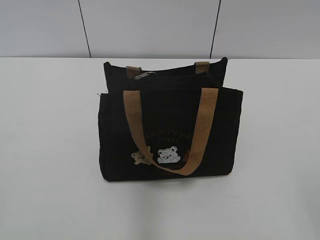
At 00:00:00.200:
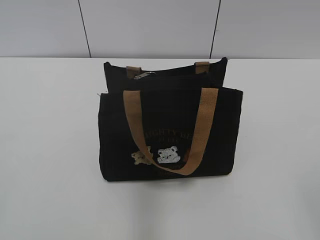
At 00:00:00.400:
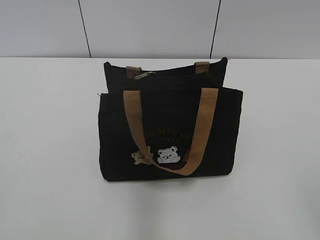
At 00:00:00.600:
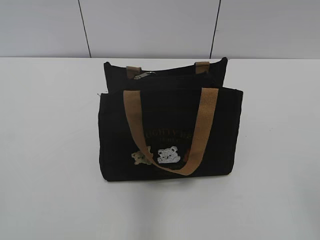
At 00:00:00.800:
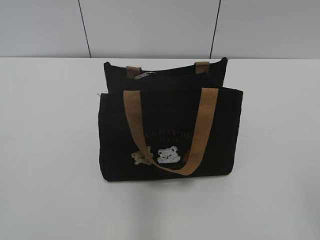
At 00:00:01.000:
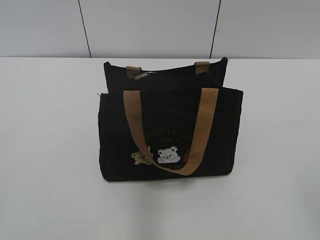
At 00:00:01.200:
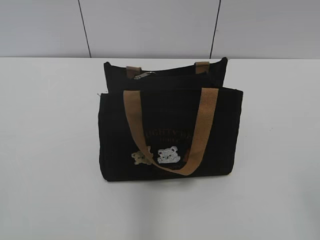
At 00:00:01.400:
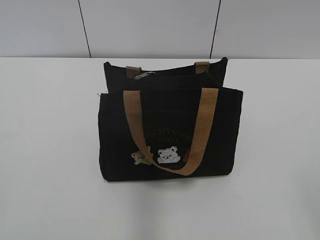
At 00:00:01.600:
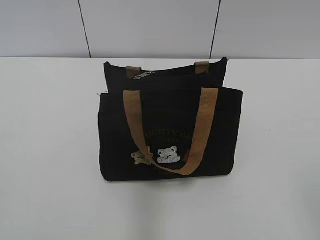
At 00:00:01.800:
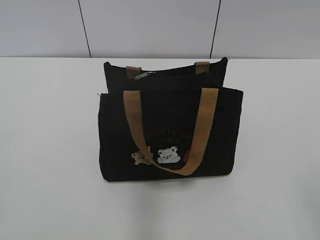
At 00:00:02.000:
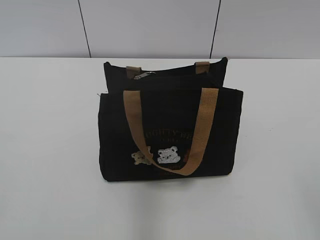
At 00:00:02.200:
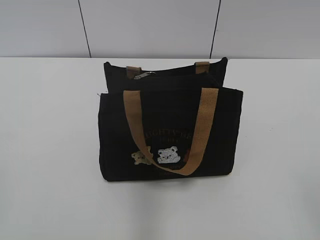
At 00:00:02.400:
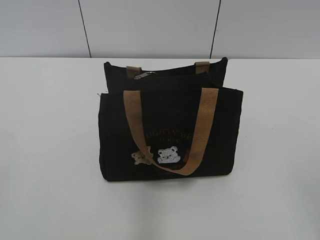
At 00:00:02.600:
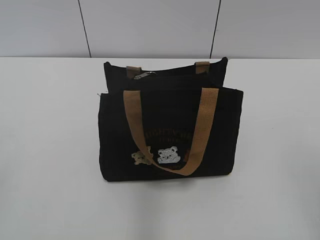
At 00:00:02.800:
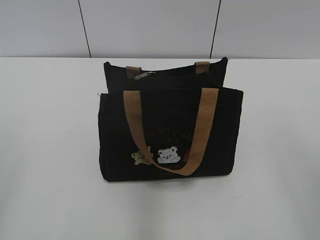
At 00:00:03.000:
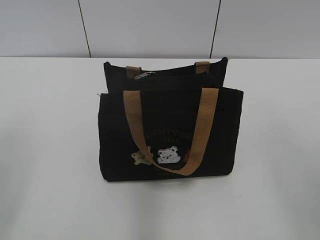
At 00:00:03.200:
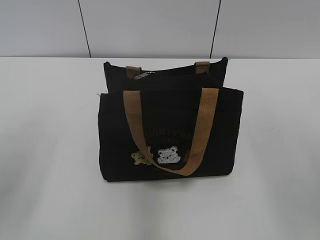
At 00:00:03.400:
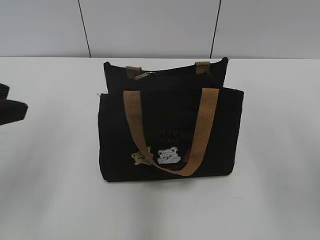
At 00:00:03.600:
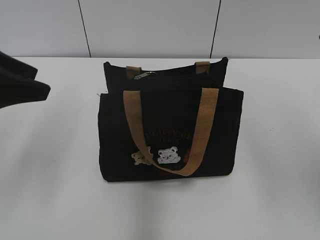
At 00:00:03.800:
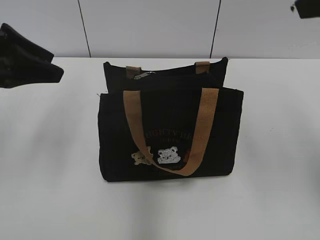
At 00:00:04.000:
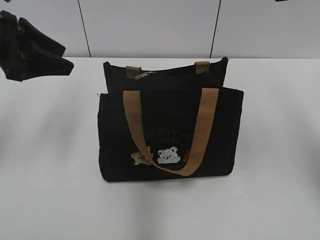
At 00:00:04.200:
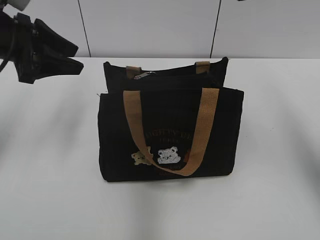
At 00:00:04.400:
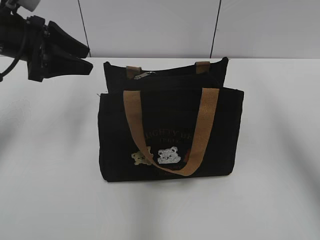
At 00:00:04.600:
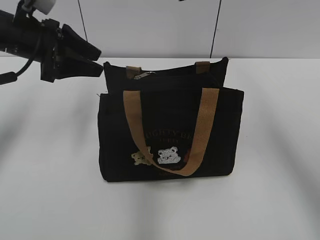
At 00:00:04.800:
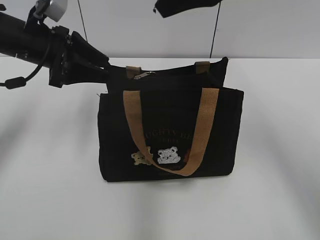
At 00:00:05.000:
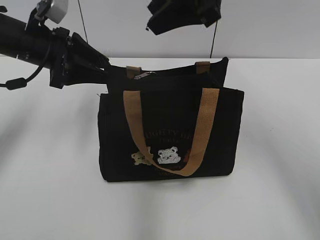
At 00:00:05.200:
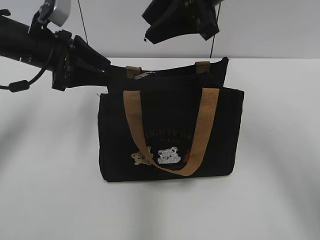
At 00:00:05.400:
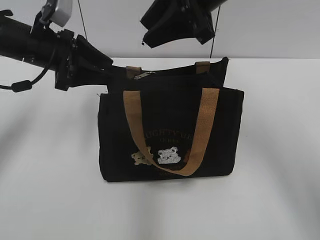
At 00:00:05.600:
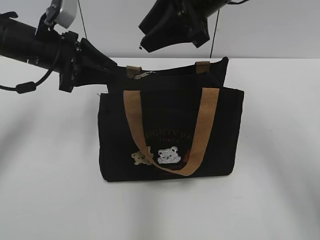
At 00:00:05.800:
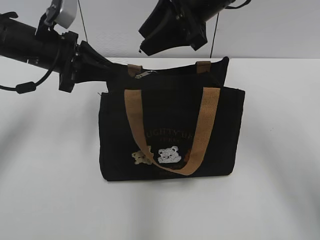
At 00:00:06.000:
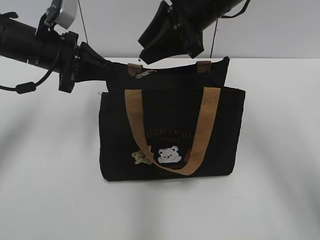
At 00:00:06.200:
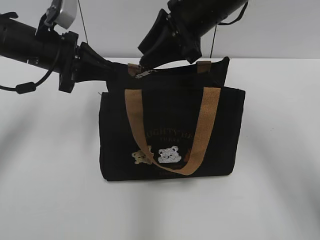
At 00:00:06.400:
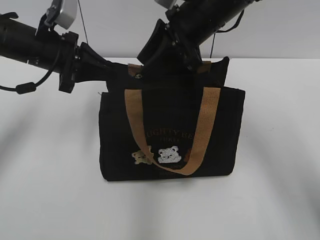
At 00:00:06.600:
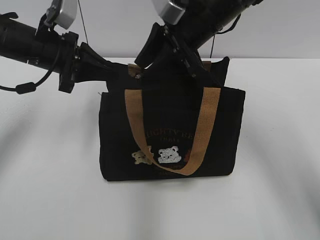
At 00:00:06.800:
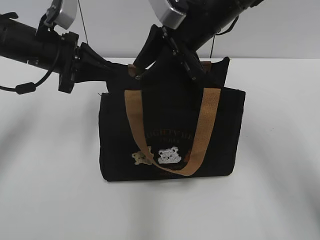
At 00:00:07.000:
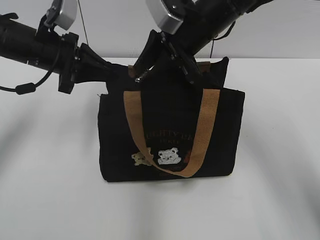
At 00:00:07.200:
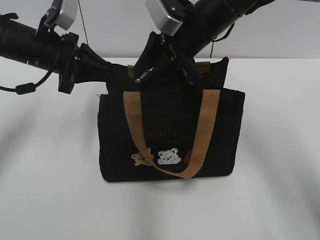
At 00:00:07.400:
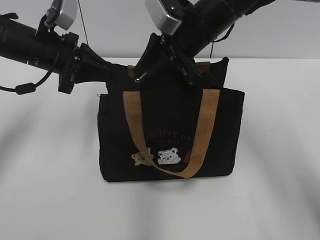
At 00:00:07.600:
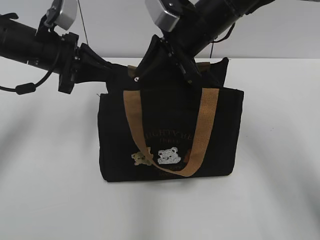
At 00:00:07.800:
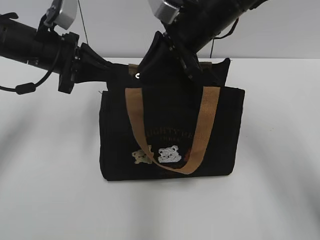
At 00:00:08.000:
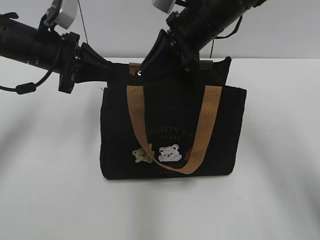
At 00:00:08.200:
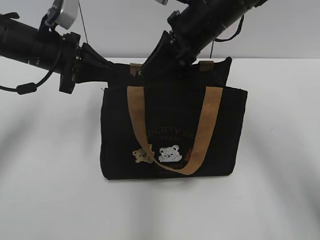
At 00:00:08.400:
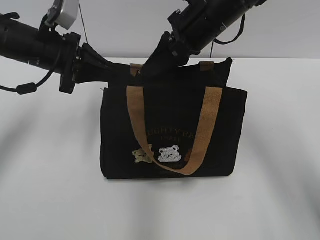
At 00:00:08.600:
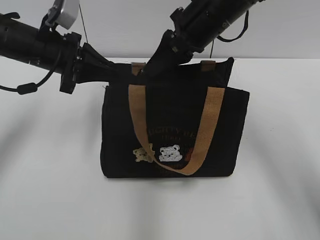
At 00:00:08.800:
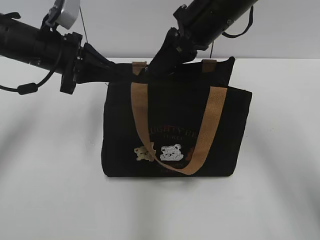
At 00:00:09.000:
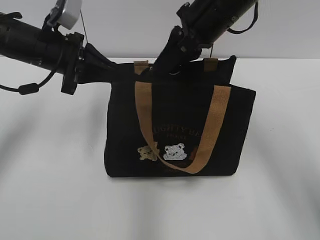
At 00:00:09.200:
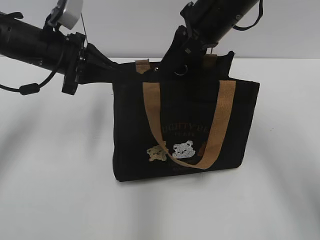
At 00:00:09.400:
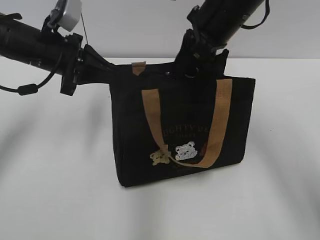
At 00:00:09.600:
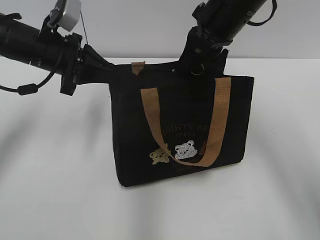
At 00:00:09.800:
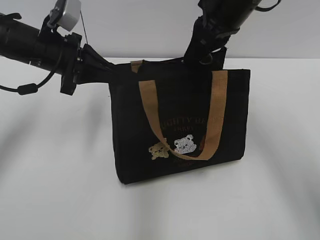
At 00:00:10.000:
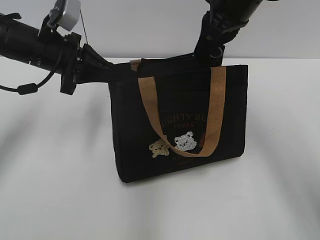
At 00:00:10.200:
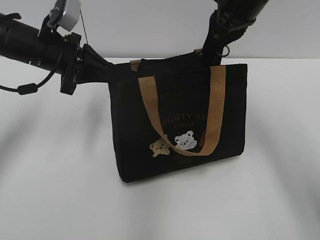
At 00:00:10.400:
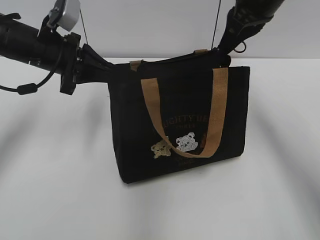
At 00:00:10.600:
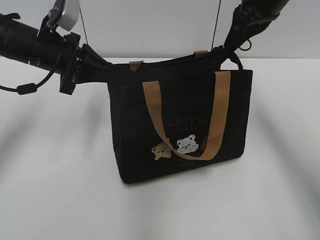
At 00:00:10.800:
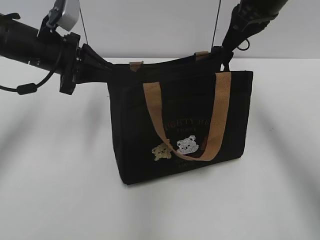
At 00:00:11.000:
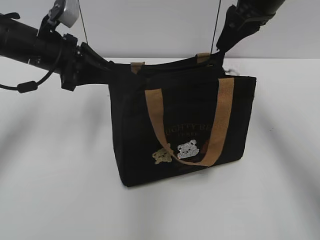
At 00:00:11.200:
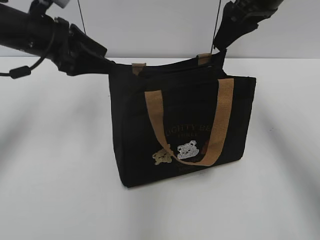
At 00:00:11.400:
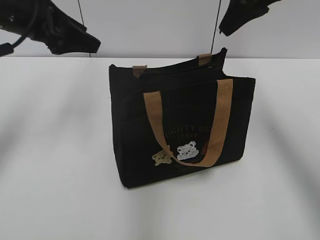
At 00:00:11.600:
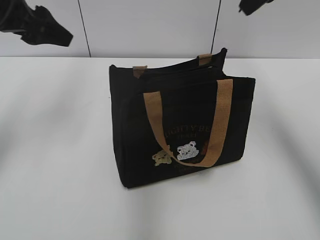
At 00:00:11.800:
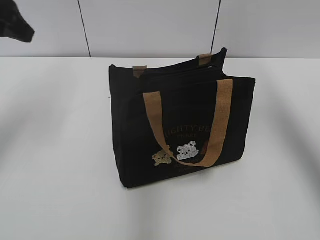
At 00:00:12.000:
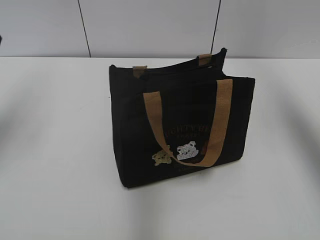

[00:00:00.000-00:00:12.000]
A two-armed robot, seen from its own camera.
Step, 00:00:00.000 to 00:00:10.800: Pull open the zipper with your right hand.
Step, 00:00:11.000 to 00:00:11.200: Hold the bag with your left hand.
00:00:03.000 to 00:00:04.400: The right gripper is displaced forward and to the left by some 25 cm, while the left gripper travels forward by about 25 cm.
00:00:04.400 to 00:00:06.000: The right gripper travels downward, to the left and forward by some 15 cm, while the left gripper ends up about 5 cm from where it was, and closes.
00:00:06.000 to 00:00:07.600: The grippers stay close to where they were, moving slightly.
00:00:09.000 to 00:00:10.400: The right gripper goes some 5 cm to the right.
00:00:10.400 to 00:00:12.000: The right gripper is displaced upward, to the right and backward by about 20 cm, and opens, while the left gripper is displaced upward, to the left and backward by approximately 15 cm, and opens.

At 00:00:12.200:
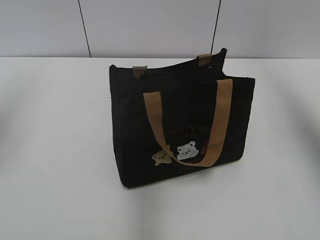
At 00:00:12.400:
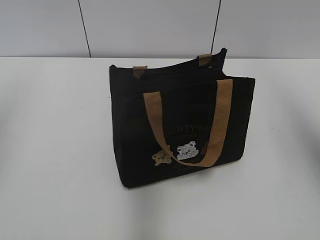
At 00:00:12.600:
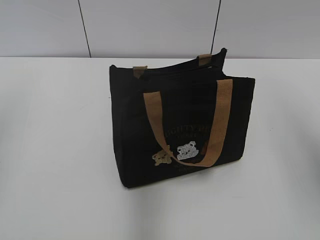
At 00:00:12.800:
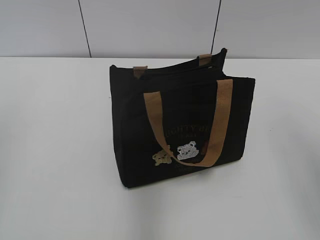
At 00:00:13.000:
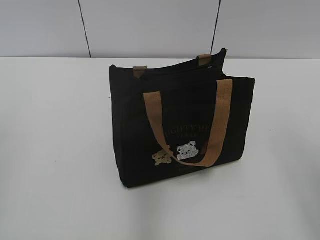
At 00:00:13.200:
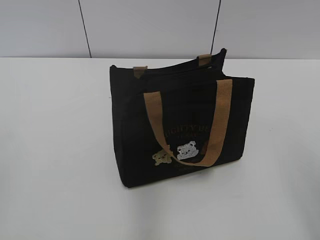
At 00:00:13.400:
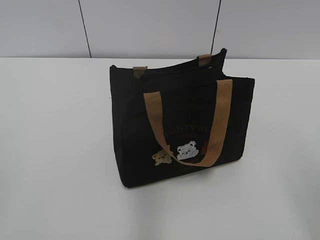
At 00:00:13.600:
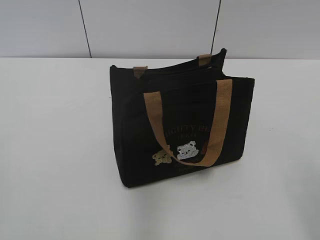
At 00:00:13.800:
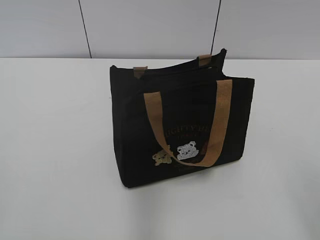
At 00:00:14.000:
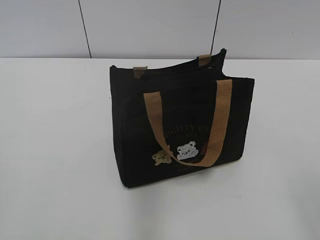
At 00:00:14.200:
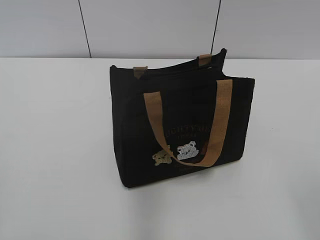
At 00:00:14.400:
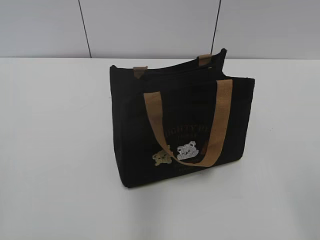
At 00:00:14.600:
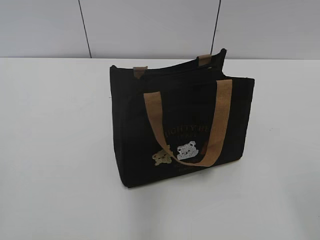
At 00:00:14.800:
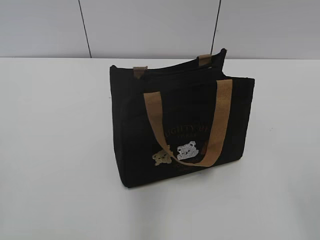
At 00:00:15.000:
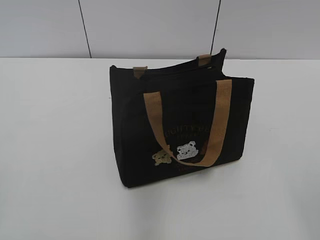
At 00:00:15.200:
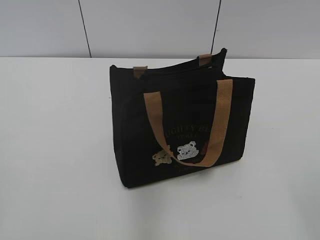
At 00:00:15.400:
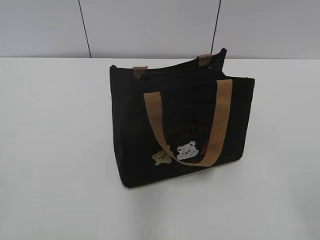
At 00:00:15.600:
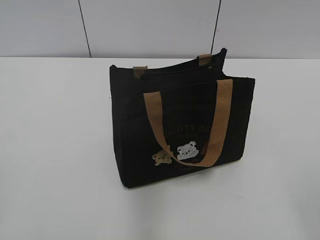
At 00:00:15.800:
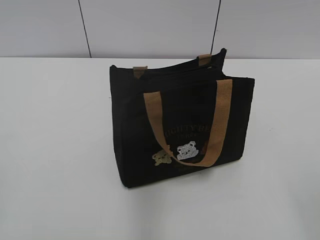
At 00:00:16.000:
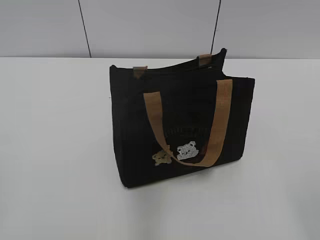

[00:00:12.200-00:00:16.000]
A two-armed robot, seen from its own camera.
00:00:12.200 to 00:00:13.400: The left gripper goes roughly 25 cm backward; the right gripper moves backward and downward, some 30 cm.
00:00:14.800 to 00:00:16.000: The two grippers keep their place.
